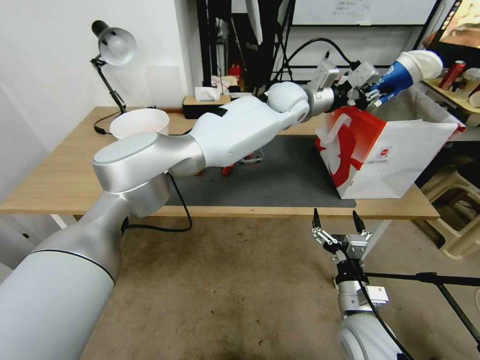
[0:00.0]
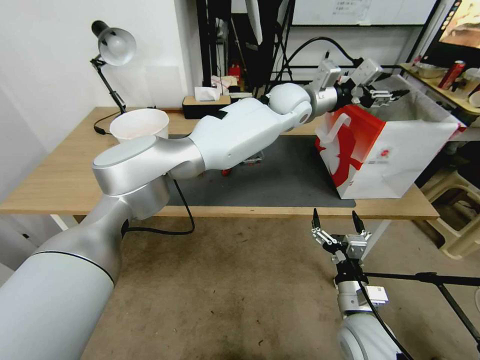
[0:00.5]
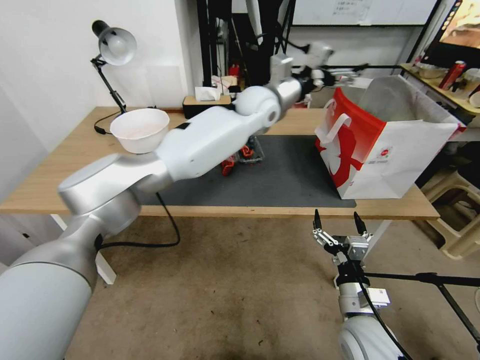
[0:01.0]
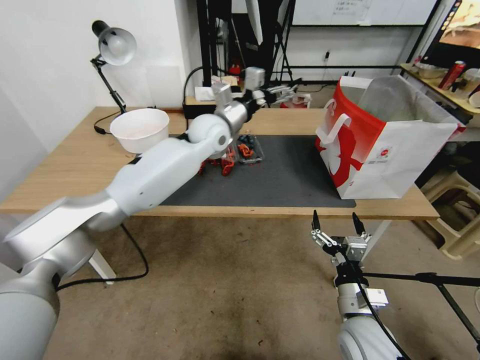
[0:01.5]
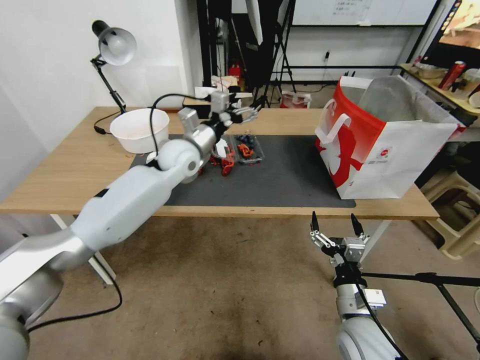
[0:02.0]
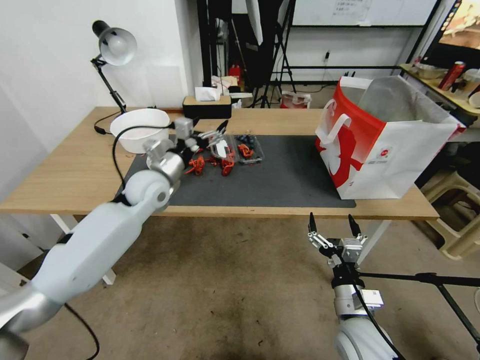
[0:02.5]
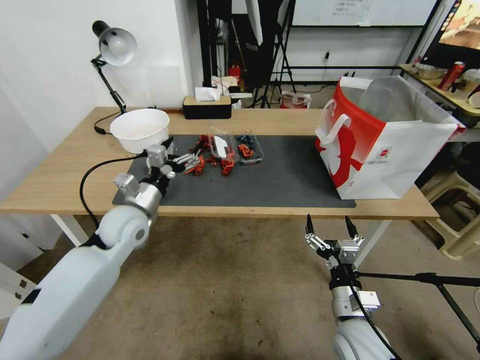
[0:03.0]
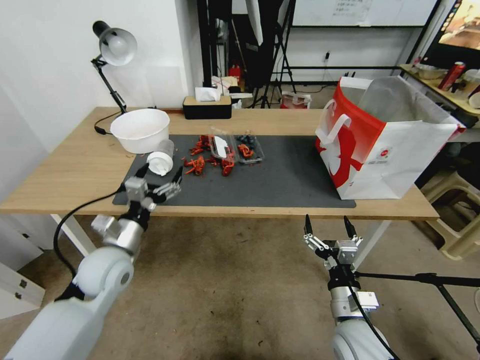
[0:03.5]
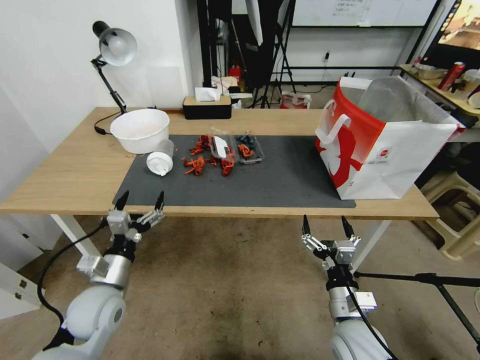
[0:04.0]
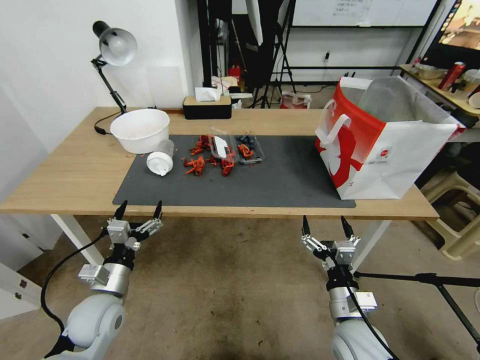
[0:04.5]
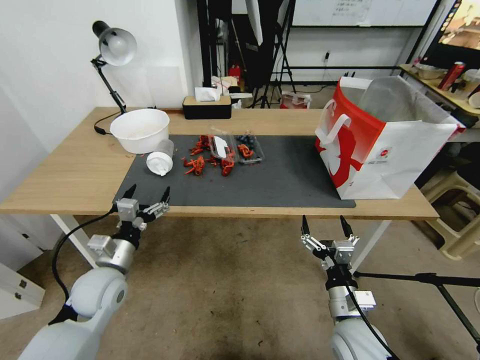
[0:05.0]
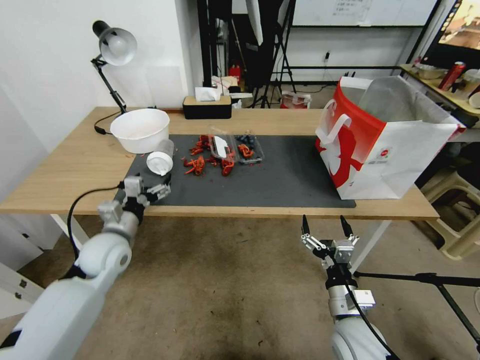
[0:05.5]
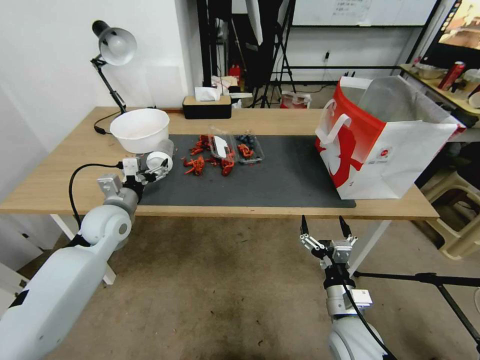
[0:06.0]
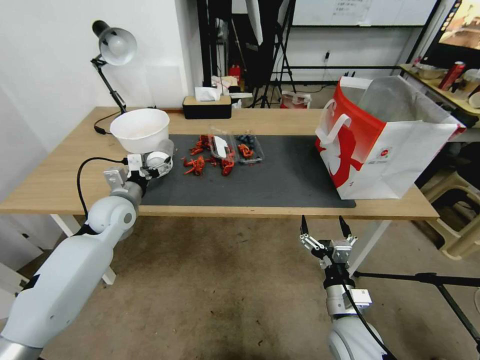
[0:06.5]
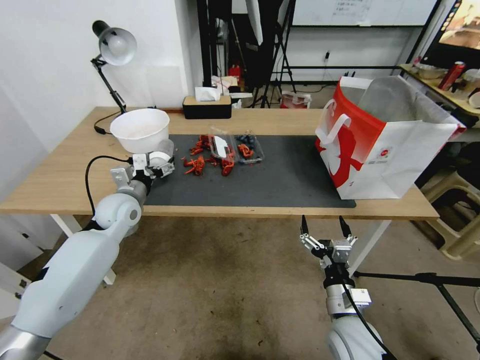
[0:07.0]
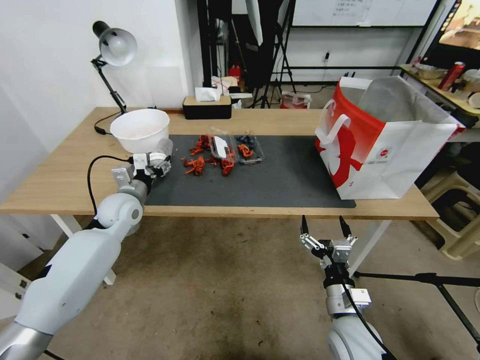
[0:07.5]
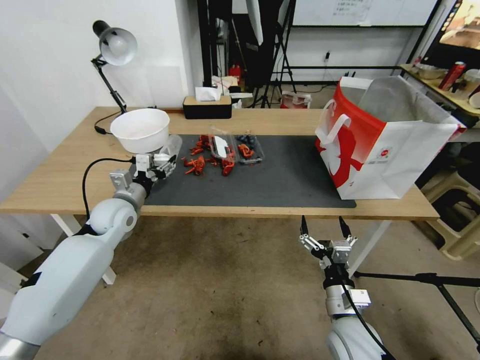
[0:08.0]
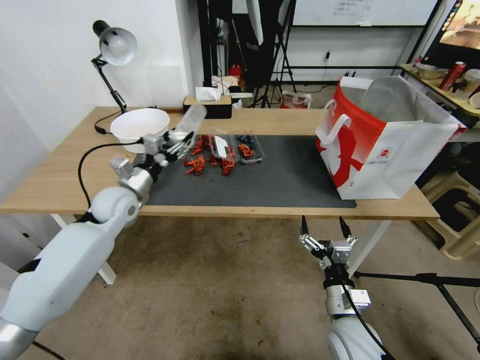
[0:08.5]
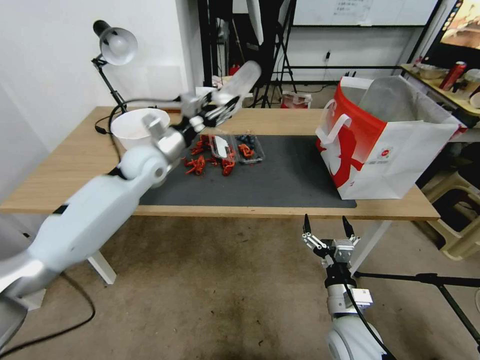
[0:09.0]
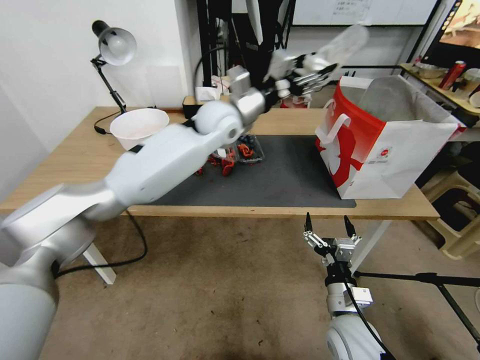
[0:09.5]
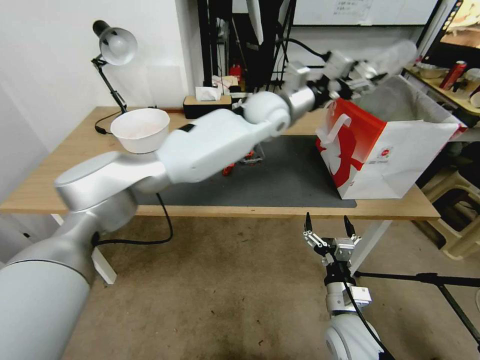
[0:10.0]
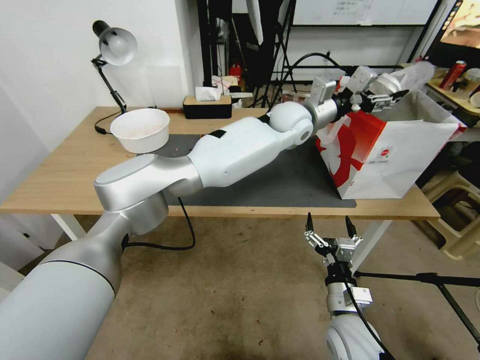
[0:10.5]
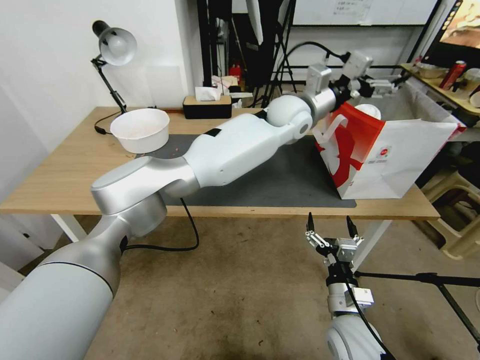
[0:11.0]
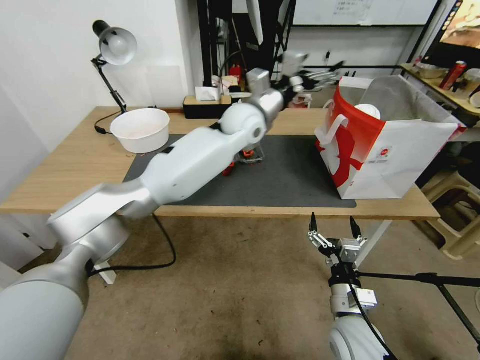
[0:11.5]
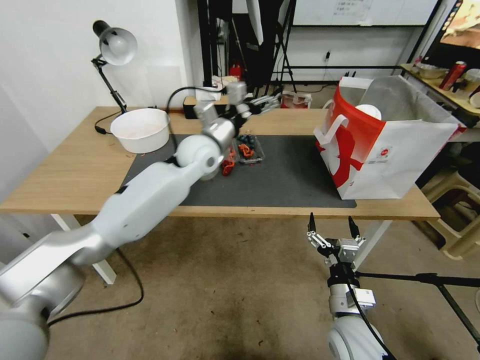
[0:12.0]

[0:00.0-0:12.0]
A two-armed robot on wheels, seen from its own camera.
0:00.0 to 0:02.0: The left gripper is displaced to the left and downward by roughly 25 cm, and opens up.
0:02.0 to 0:04.0: The left gripper heads backward, downward and to the left, covering about 35 cm.
0:04.0 to 0:06.0: The left gripper moves forward and upward, about 15 cm.
0:06.0 to 0:08.0: The left gripper closes.
0:08.0 to 0:10.0: The left gripper shifts roughly 40 cm to the right and upward.
0:10.0 to 0:12.0: The left gripper moves to the left and downward, roughly 20 cm, and opens.

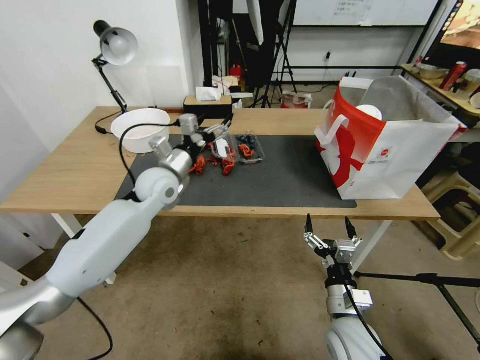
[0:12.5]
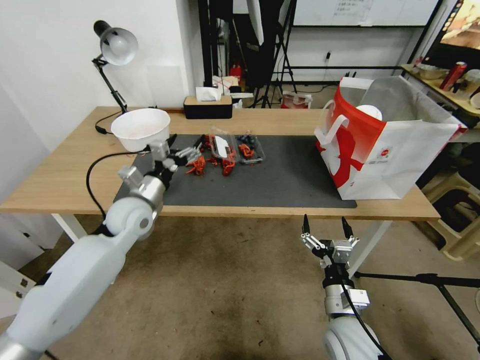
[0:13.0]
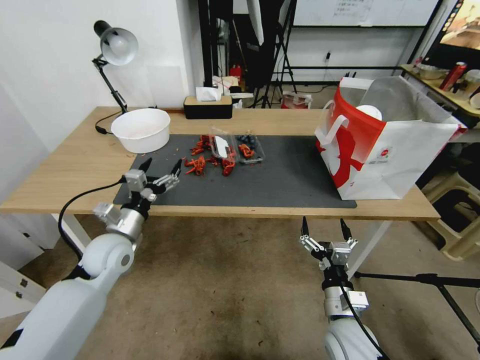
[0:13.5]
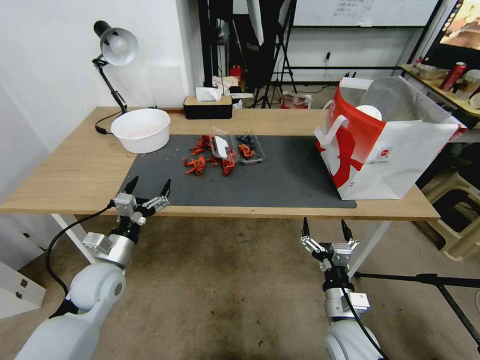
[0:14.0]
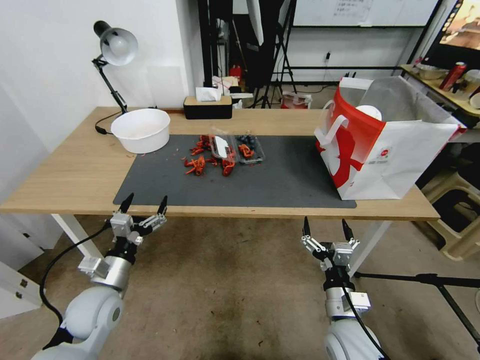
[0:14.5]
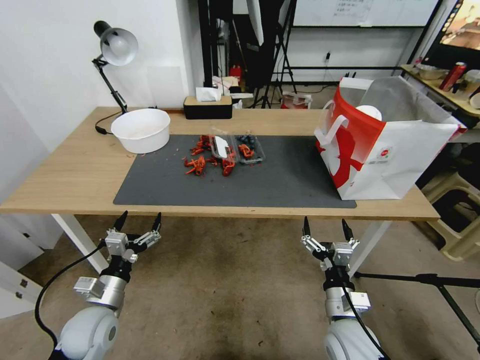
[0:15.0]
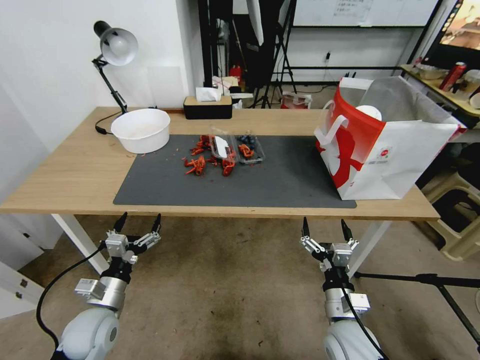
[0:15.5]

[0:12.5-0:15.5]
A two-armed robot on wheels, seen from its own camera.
0:12.5 to 0:14.0: The left gripper heads backward, downward and to the left, covering roughly 25 cm.
0:14.0 to 0:15.5: The left gripper travels backward and downward by some 10 cm.
